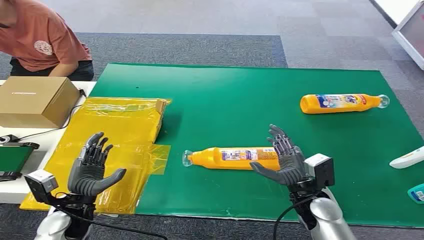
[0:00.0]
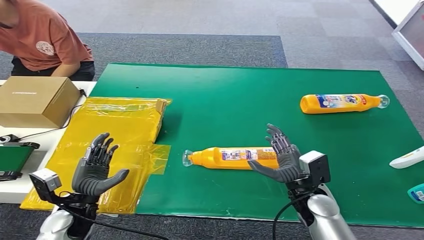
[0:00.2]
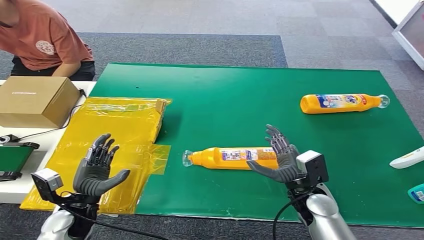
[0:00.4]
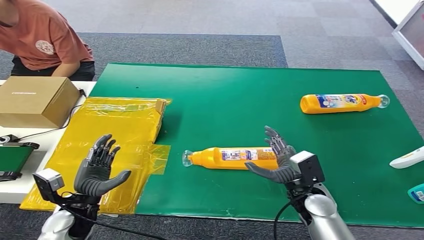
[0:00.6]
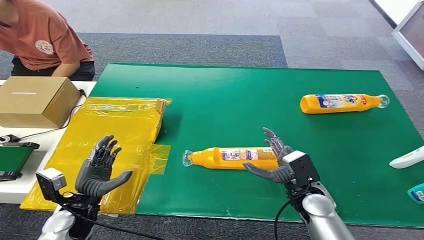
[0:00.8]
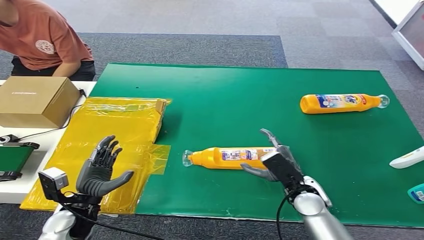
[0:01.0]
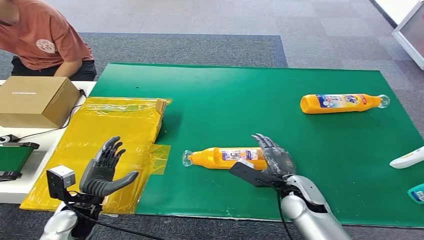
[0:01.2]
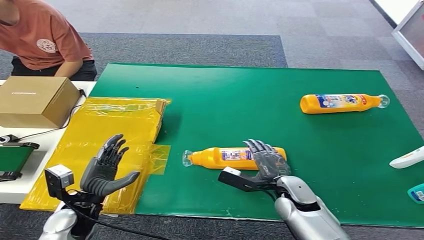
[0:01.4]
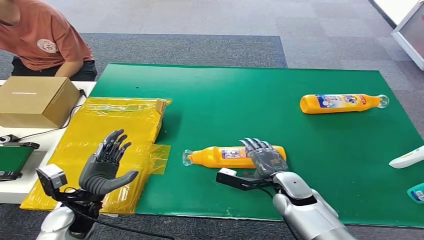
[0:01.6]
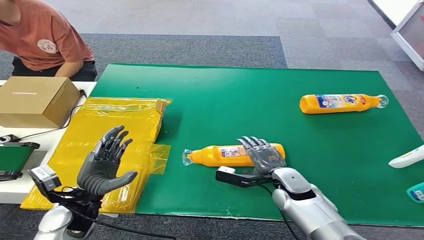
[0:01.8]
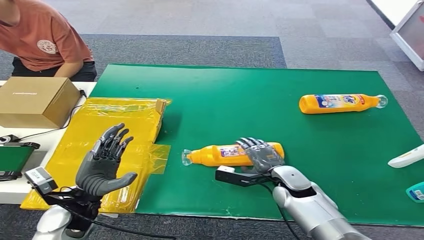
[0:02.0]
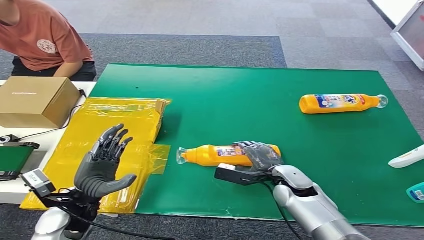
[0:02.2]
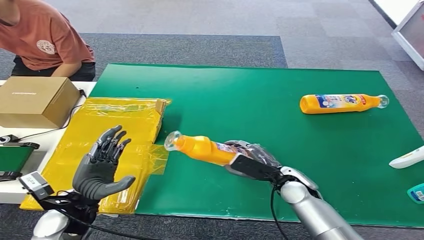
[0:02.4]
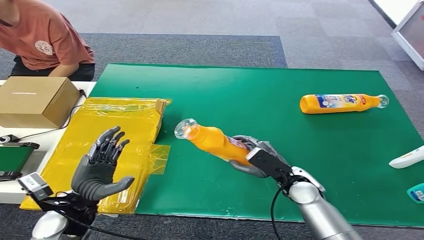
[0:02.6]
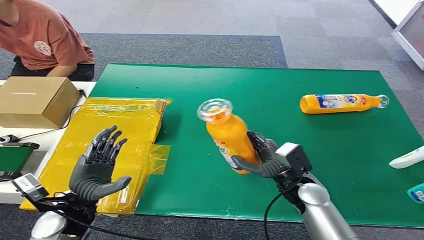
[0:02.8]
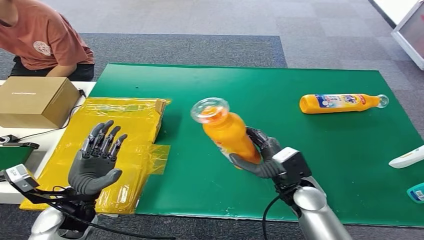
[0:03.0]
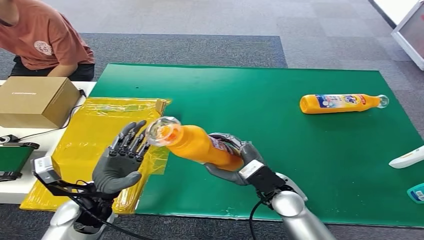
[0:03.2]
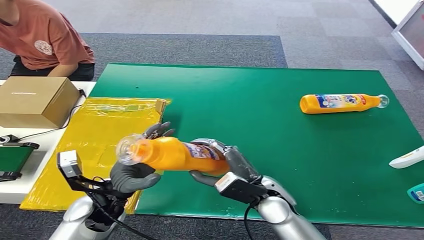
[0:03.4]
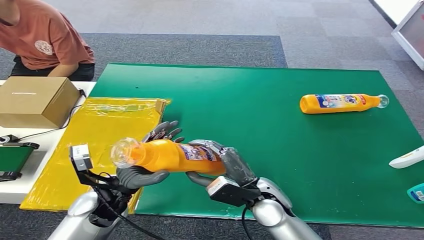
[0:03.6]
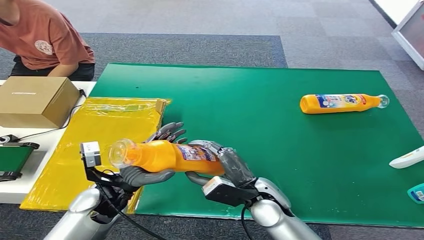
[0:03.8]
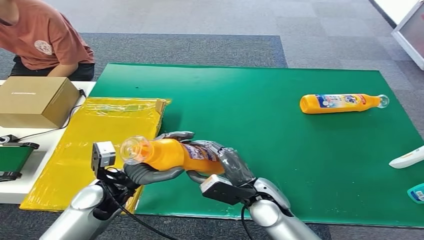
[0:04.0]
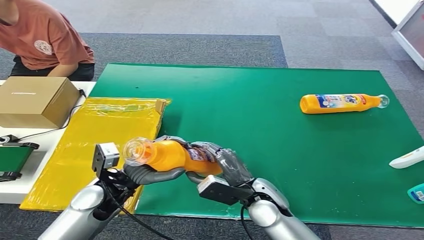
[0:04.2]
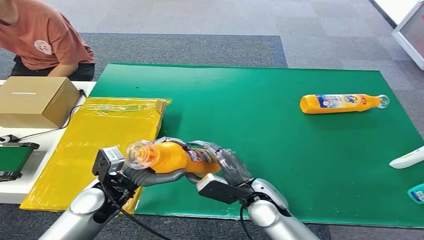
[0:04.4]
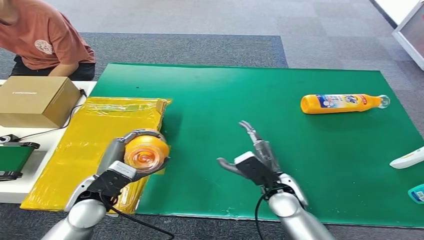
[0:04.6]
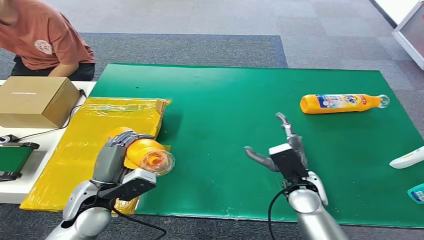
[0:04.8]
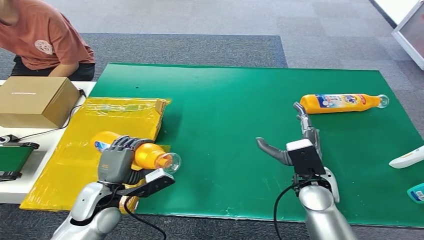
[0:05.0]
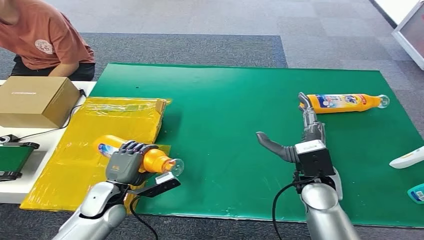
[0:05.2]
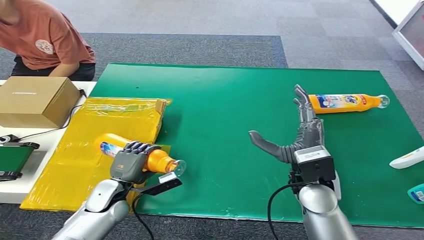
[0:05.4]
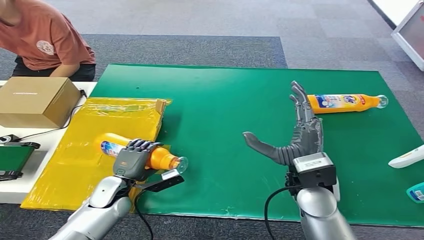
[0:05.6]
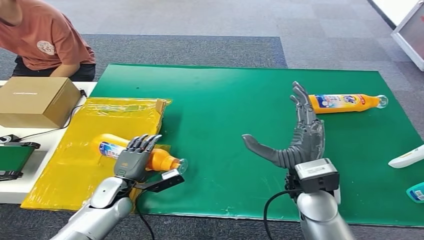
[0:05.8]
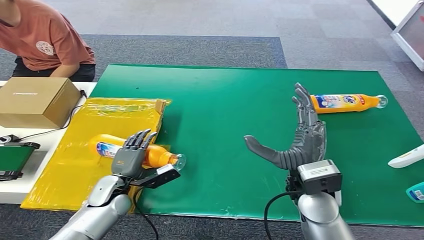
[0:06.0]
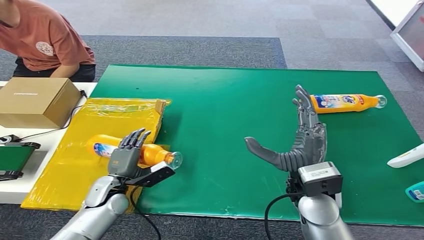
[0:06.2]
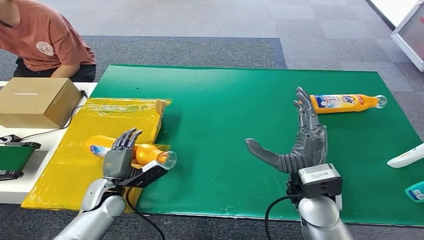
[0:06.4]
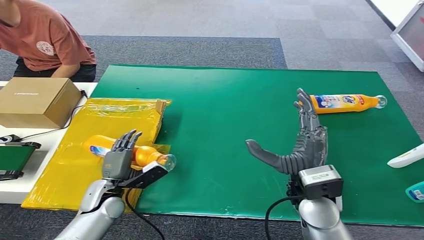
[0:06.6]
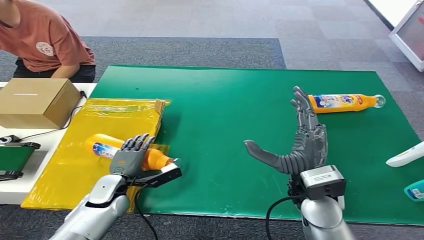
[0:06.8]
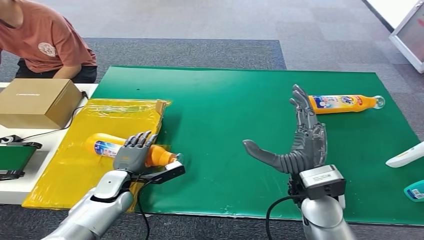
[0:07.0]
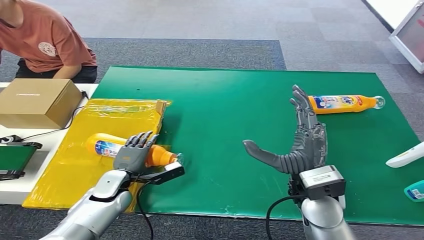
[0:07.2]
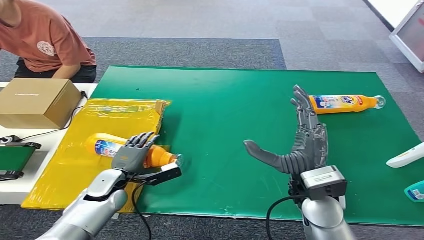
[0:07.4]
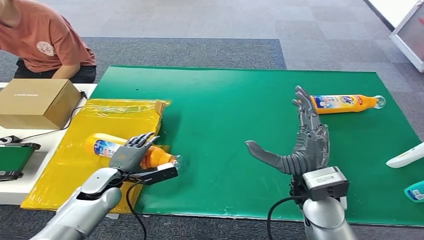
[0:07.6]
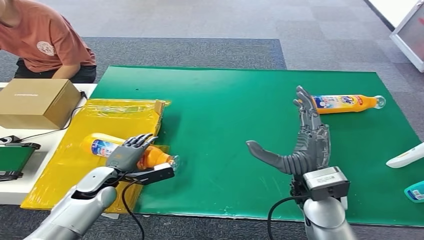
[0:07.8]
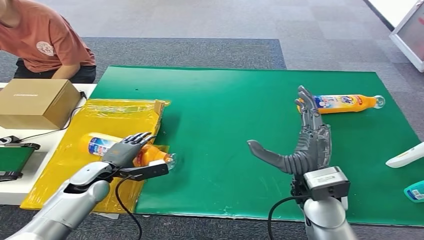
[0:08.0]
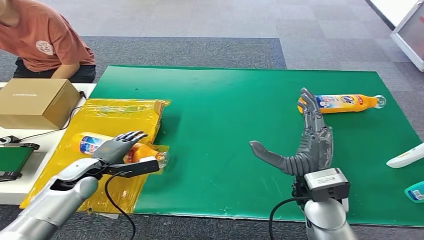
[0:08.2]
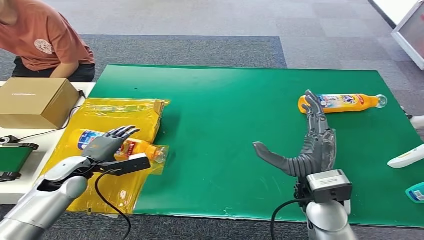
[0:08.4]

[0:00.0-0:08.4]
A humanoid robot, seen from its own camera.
Step, 0.0 to 2.8 s: Pick up the bottle from the table.
Step, 3.0 to 8.4 s: Turn the bottle to the front side.
2.8 to 4.2 s: The right hand is displaced to the left by approximately 10 cm, while the left hand is displaced to the right by some 5 cm.
4.2 to 5.6 s: The left hand goes about 10 cm downward, while the right hand heads upward and to the right, covering about 10 cm.

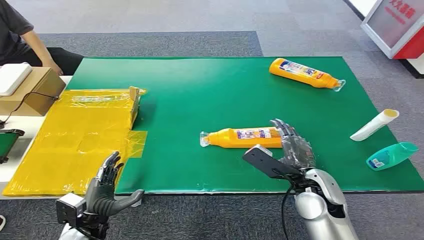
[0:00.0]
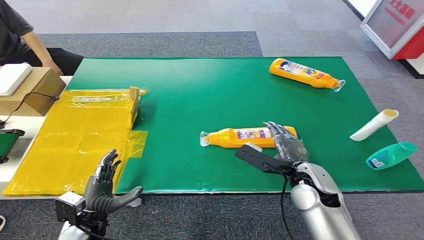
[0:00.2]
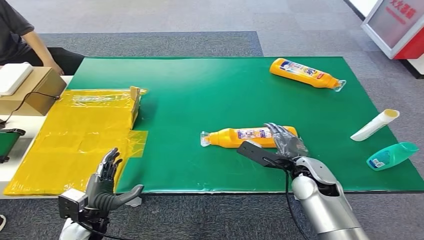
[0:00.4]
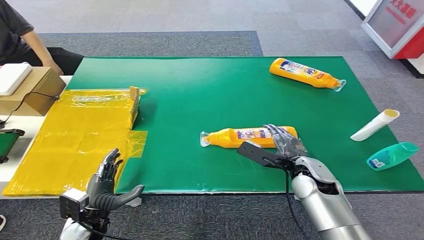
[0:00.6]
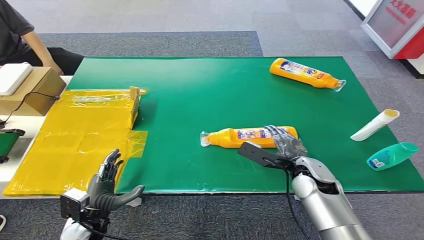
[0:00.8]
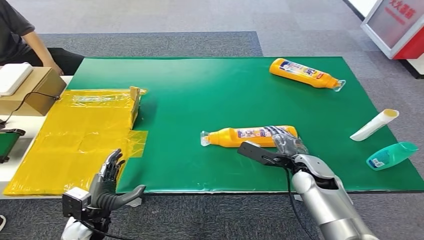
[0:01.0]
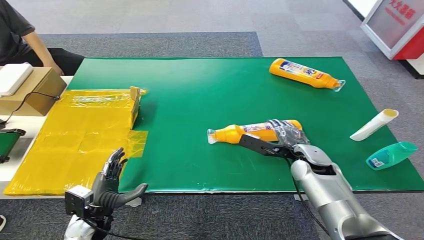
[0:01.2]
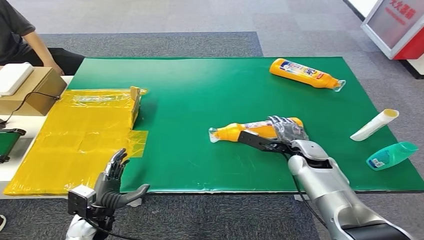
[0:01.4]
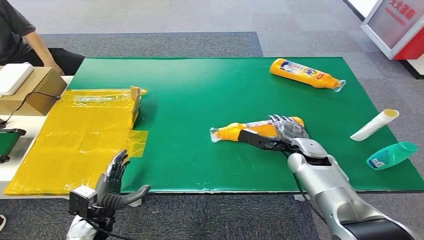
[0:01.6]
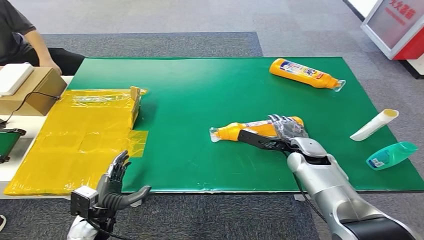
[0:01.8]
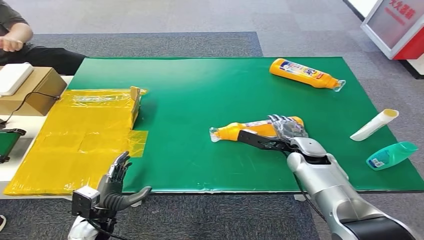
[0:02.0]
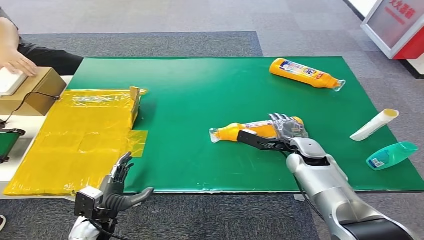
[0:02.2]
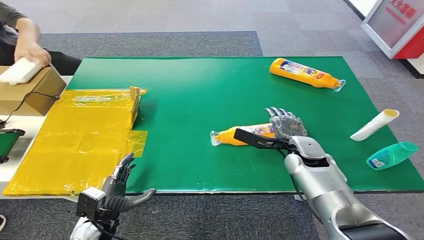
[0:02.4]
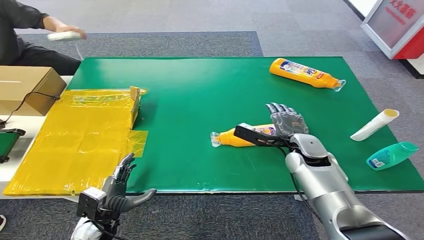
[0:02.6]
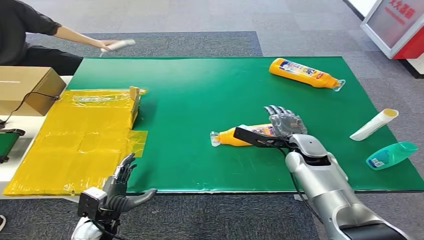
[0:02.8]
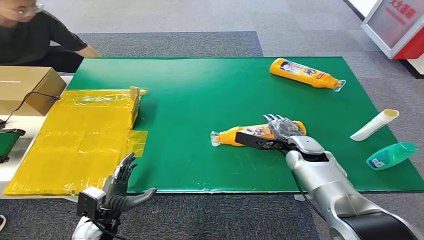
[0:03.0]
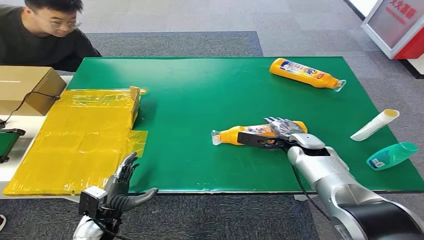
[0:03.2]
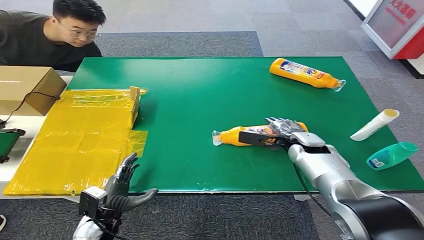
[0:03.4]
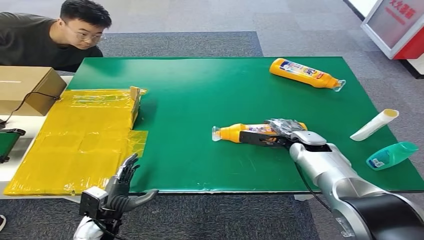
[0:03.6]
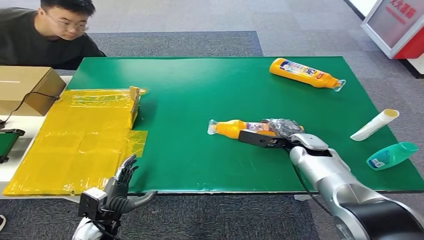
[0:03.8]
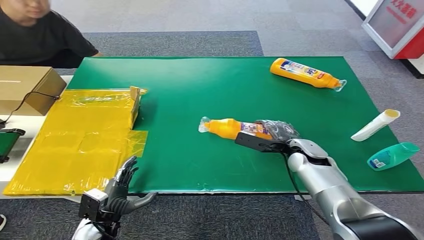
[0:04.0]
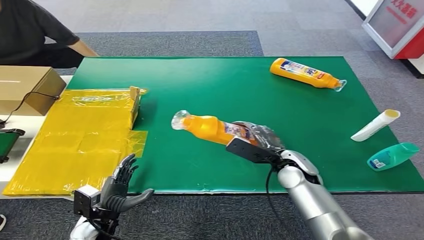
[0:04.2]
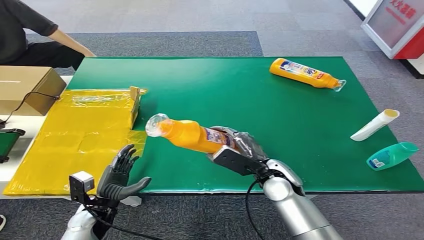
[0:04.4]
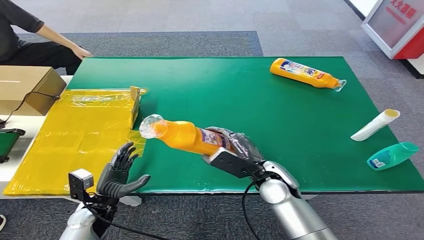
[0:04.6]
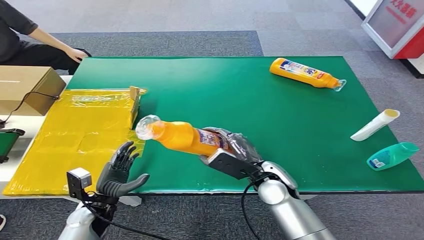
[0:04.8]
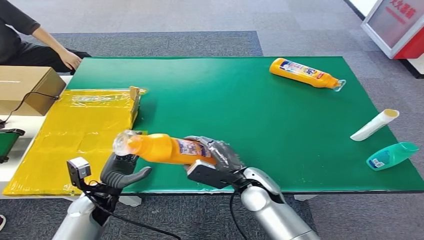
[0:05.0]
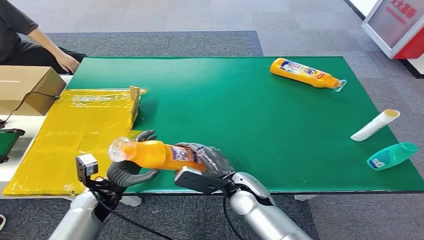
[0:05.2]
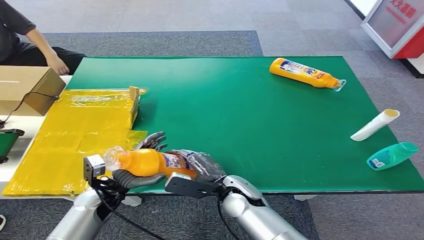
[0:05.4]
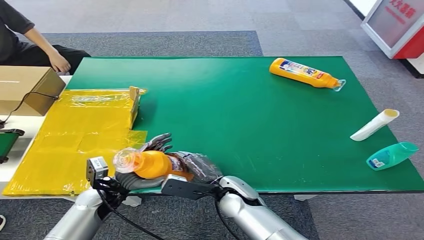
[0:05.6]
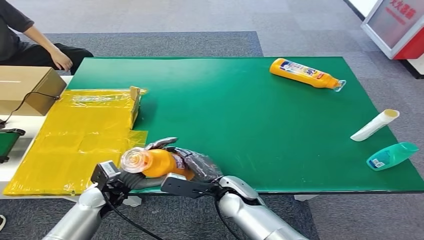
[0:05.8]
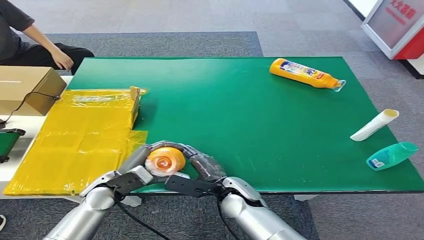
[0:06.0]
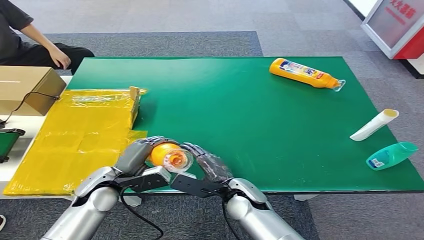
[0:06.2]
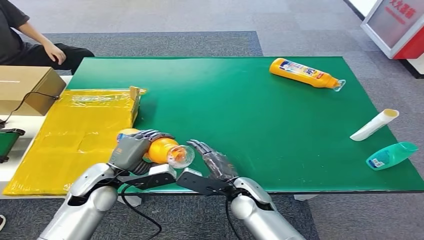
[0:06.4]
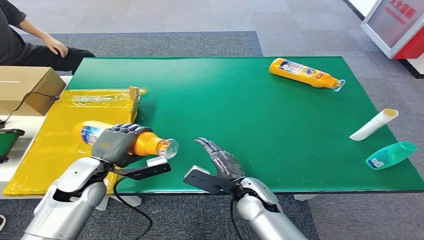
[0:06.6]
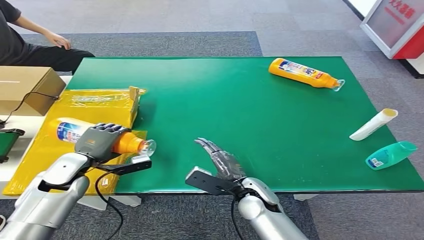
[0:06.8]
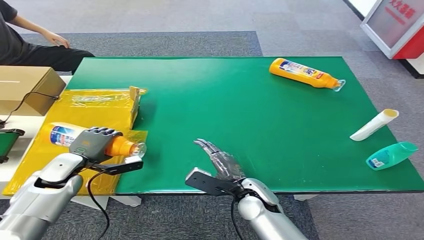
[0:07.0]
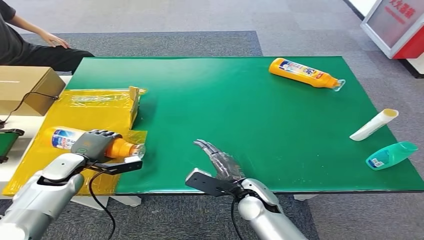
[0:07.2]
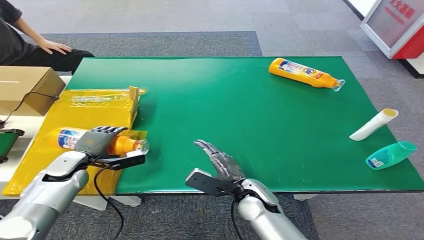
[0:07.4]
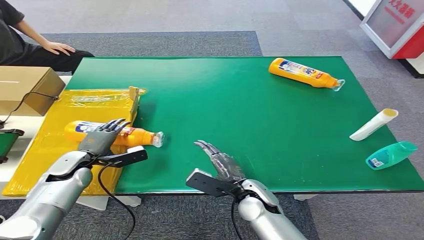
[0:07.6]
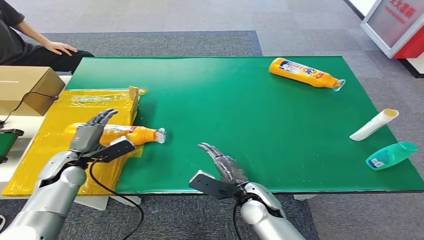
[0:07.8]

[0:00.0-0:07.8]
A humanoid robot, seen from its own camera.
Step, 0.0 to 4.0 s: Pick up the bottle from the table.
Step, 4.4 to 7.8 s: Turn the bottle to the front side.
1.6 to 3.2 s: The hands make only small movements.
4.6 to 6.2 s: The right hand heads to the left and downward, covering about 10 cm; the left hand travels upward and forward by some 10 cm.
6.2 to 7.8 s: The left hand goes some 10 cm to the left and forward.

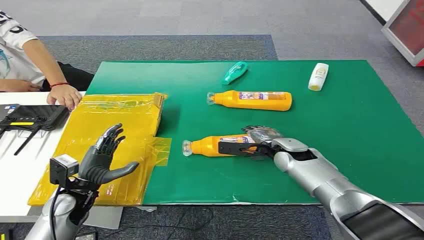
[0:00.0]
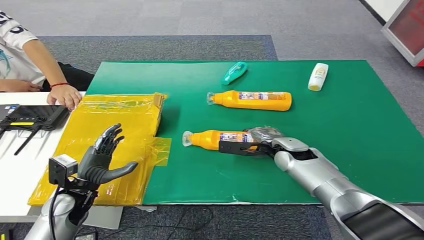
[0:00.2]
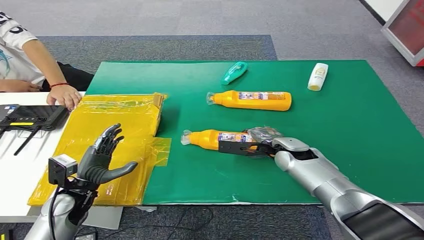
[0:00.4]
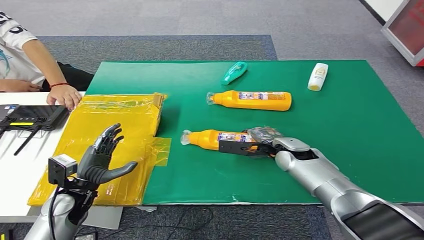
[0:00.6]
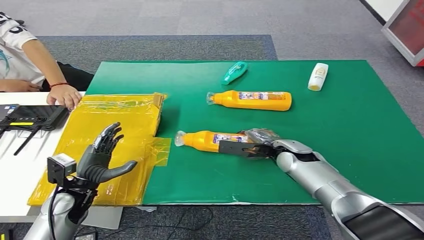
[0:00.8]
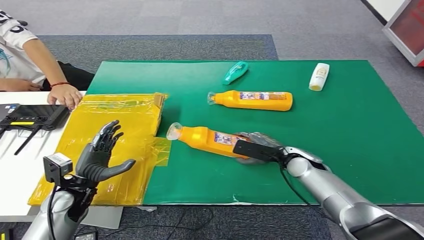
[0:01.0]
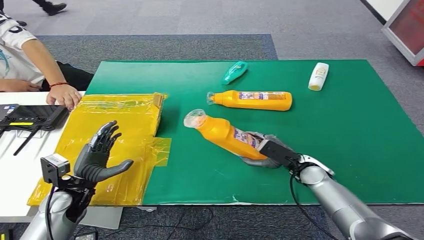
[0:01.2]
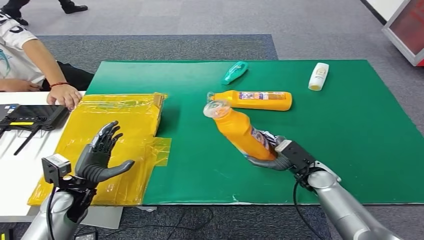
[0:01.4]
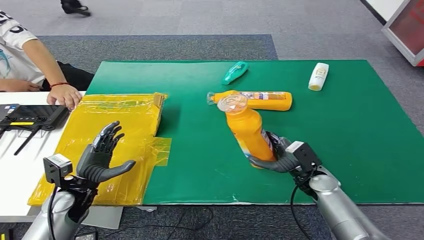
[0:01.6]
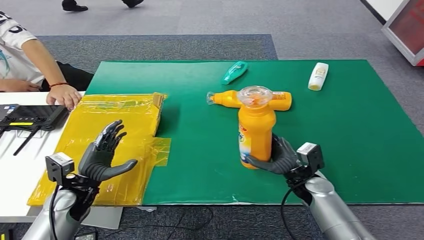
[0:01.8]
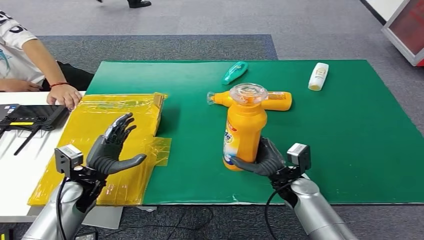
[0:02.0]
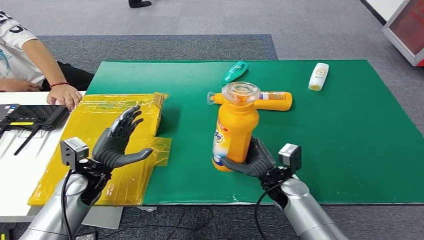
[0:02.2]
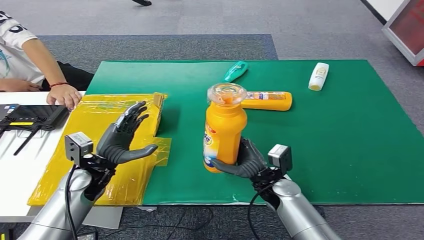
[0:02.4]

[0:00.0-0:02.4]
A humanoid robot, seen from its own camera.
1.2 to 2.4 s: The left hand changes place by about 10 cm; the right hand goes some 10 cm to the left.
